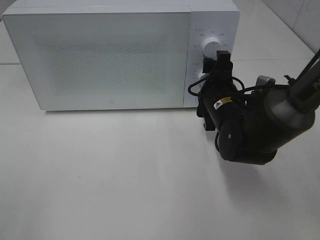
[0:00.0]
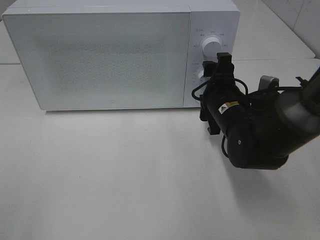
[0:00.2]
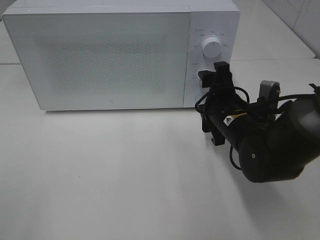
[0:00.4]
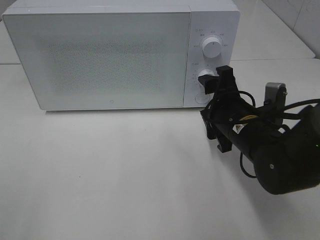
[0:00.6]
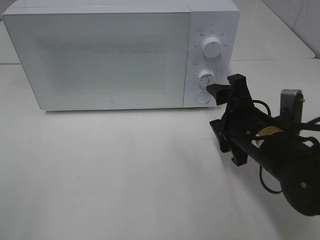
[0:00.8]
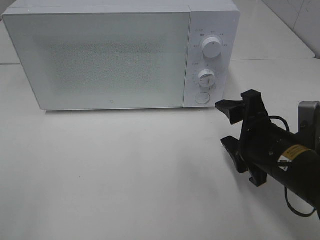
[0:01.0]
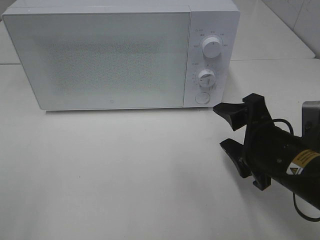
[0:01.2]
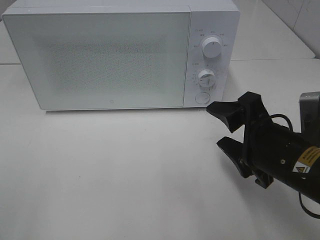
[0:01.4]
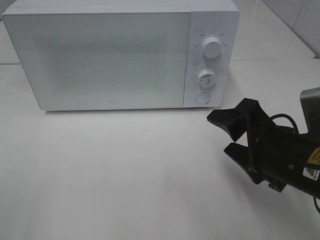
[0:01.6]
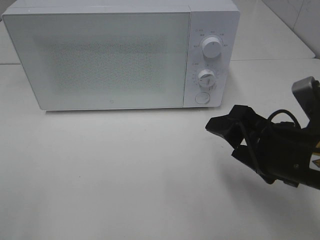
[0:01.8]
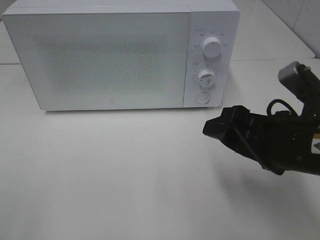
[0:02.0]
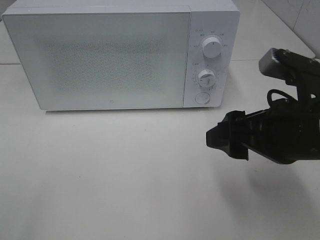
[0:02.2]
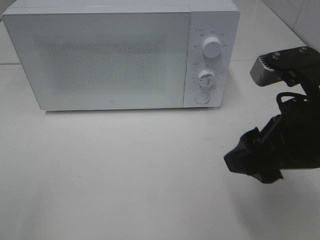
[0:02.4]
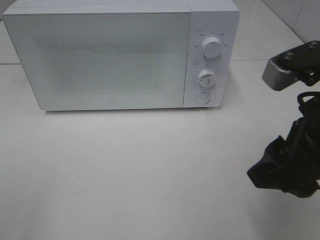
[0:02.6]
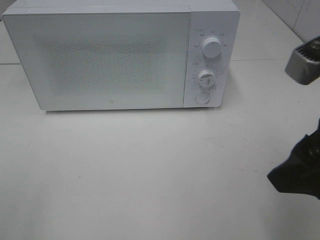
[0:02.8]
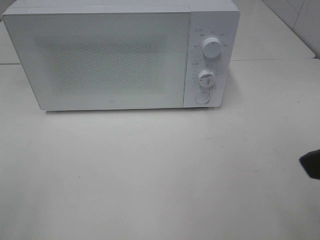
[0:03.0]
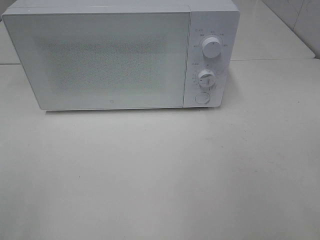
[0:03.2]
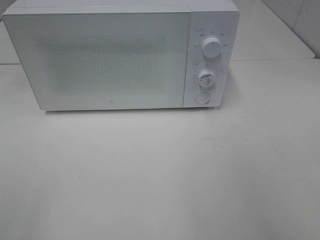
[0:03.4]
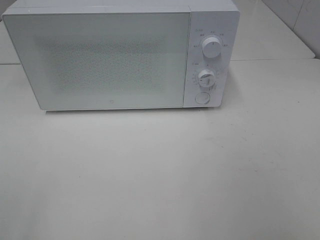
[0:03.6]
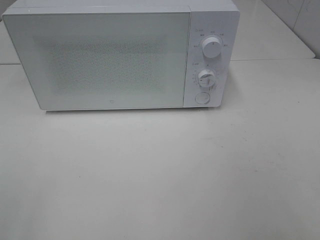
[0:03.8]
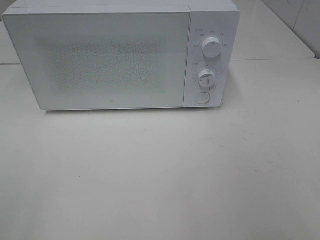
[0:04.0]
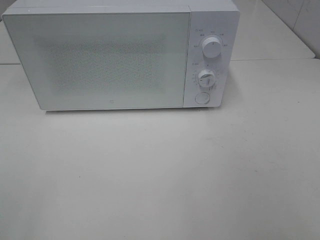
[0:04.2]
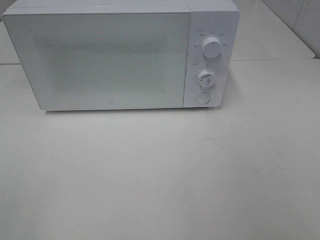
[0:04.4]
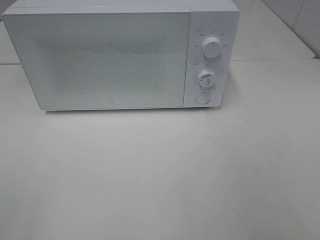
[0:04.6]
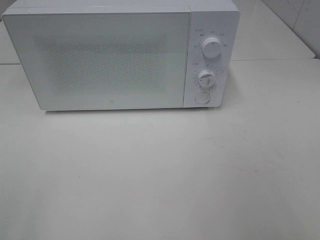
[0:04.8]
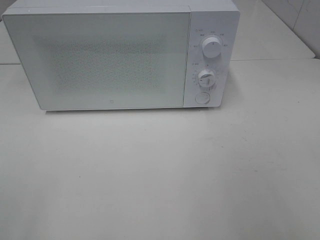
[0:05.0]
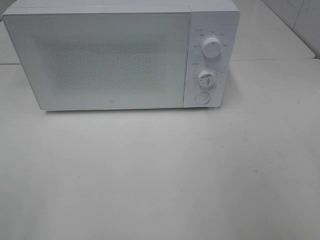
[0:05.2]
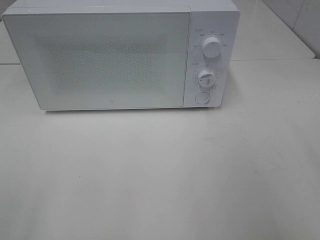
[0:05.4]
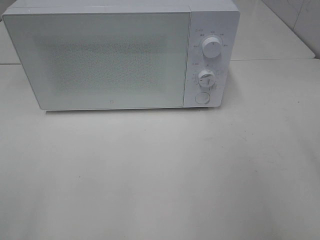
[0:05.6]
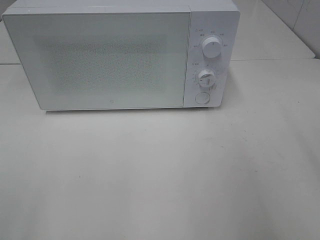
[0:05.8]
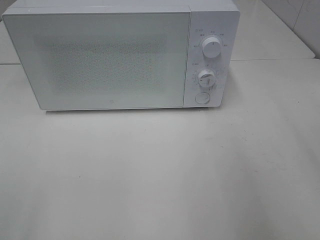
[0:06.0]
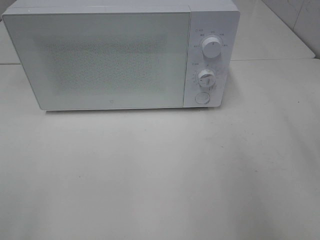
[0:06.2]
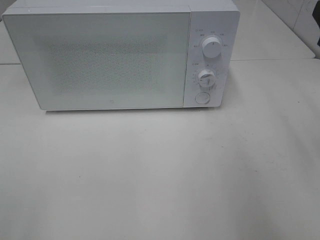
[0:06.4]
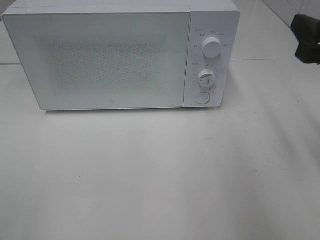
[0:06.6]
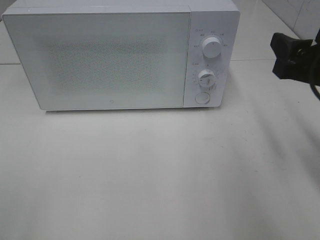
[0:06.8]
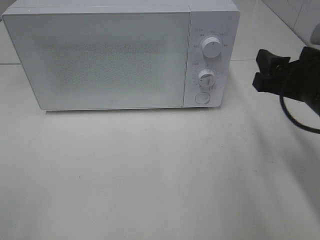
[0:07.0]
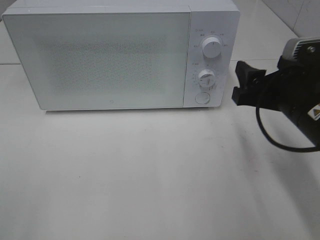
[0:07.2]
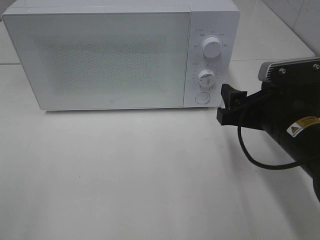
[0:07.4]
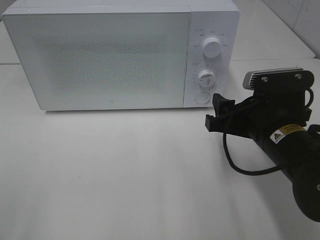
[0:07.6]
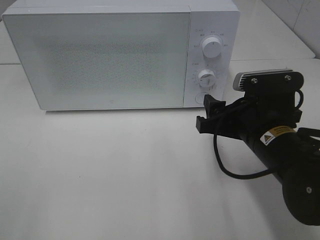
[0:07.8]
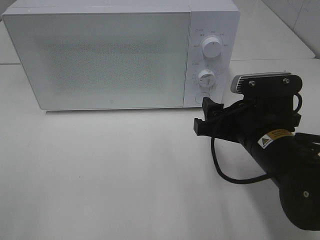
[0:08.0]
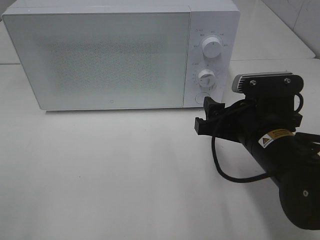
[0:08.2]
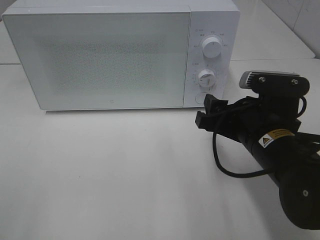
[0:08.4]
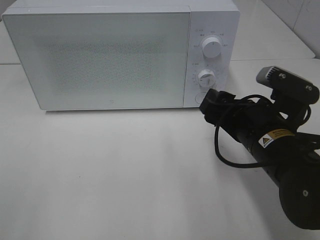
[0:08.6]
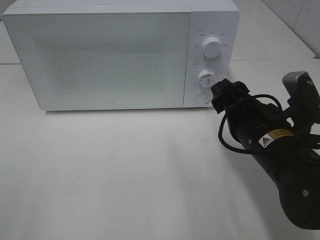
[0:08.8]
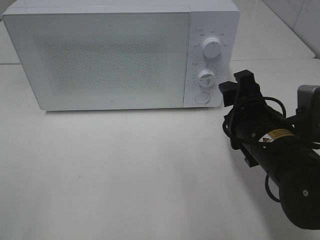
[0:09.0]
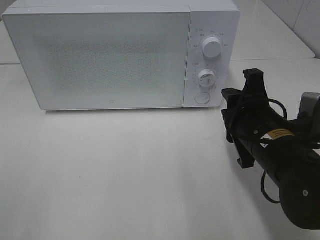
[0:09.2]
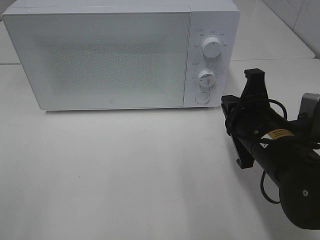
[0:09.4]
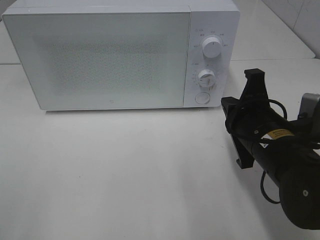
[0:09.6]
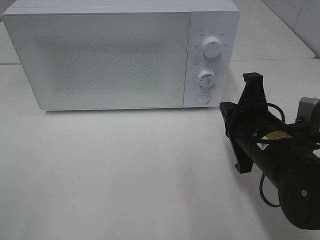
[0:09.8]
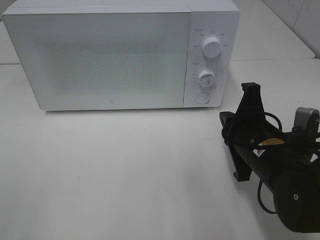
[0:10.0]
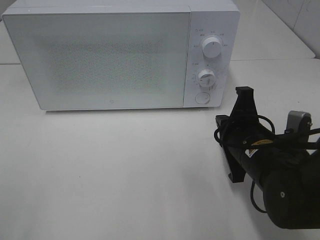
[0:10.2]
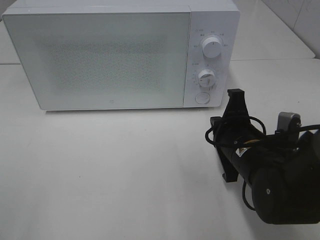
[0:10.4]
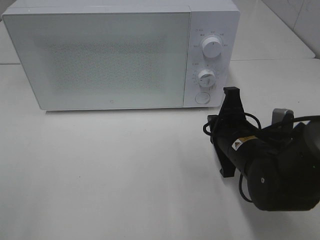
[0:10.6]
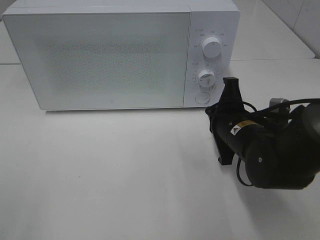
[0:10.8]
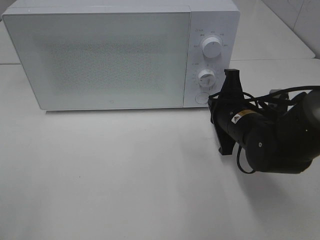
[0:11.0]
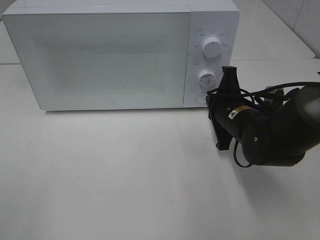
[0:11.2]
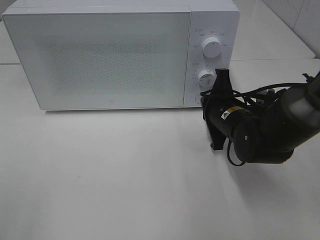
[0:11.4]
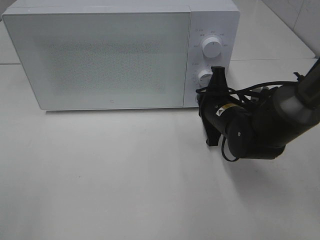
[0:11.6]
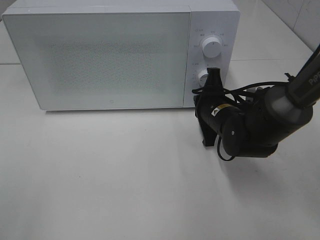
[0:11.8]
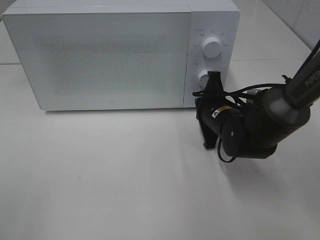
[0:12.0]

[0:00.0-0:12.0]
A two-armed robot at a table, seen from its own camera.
Task of the whole recording: Heat Sandwich.
0:00.0 to 0:01.6: The right gripper heads backward, covering approximately 15 cm.
0:01.6 to 0:03.0: The right gripper is displaced upward and backward by some 15 cm.
0:03.0 to 0:04.4: The right gripper heads backward and to the right, covering roughly 10 cm.
0:06.0 to 0:07.6: The right gripper shifts about 20 cm downward and to the left.
0:09.0 to 0:10.4: The right gripper closes.
0:10.4 to 0:12.0: The right gripper shifts about 10 cm forward.

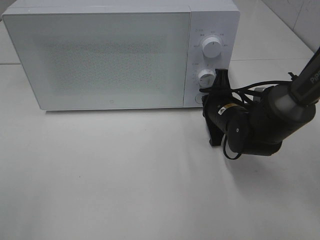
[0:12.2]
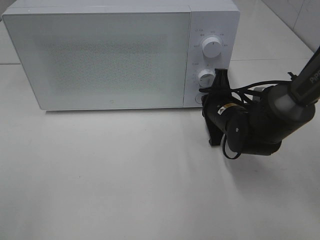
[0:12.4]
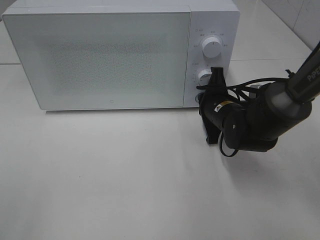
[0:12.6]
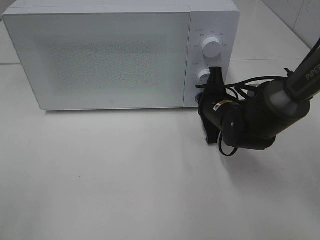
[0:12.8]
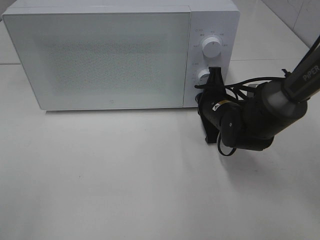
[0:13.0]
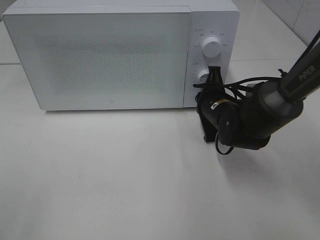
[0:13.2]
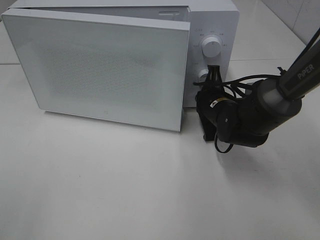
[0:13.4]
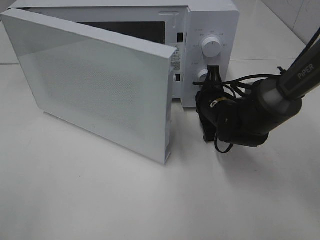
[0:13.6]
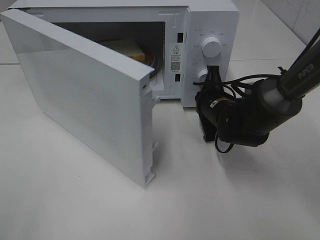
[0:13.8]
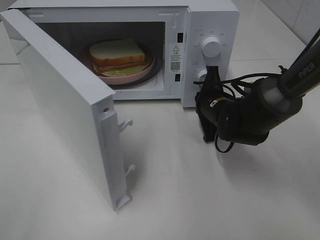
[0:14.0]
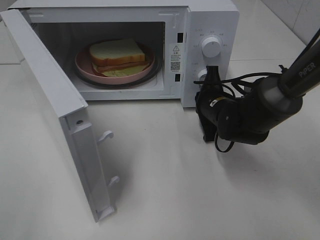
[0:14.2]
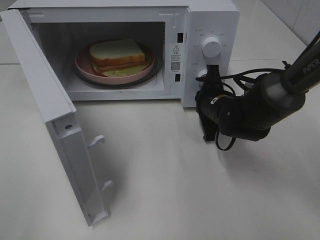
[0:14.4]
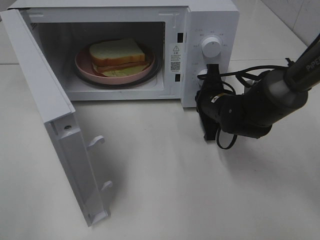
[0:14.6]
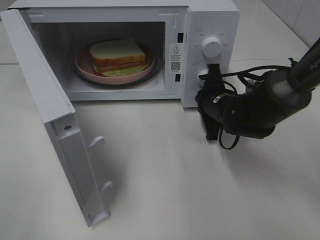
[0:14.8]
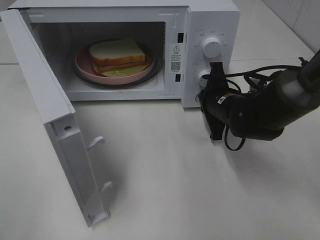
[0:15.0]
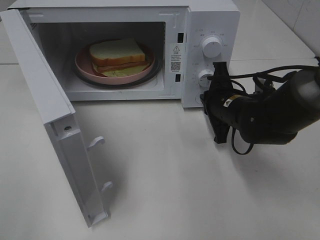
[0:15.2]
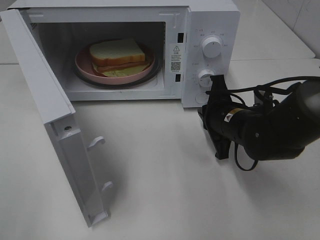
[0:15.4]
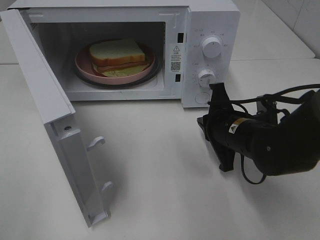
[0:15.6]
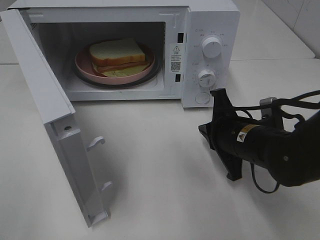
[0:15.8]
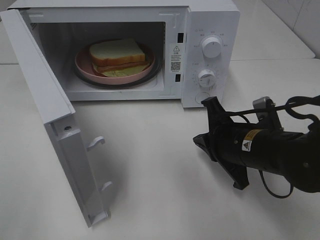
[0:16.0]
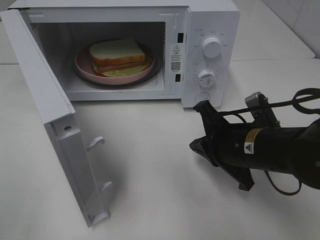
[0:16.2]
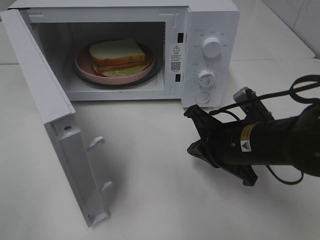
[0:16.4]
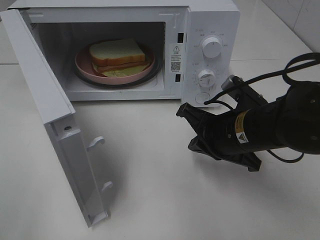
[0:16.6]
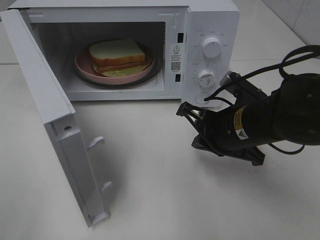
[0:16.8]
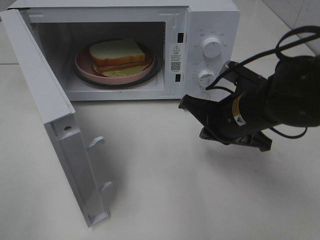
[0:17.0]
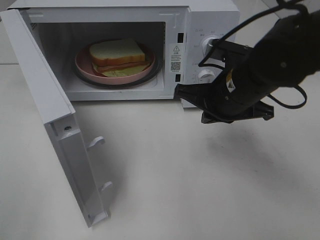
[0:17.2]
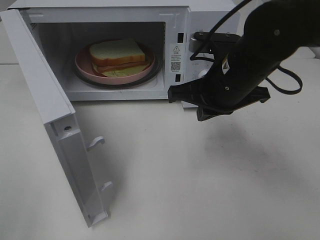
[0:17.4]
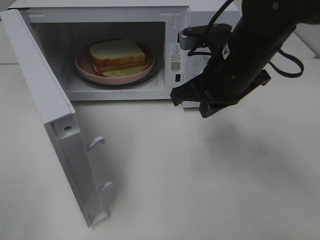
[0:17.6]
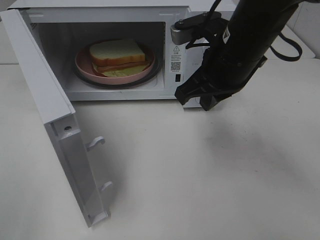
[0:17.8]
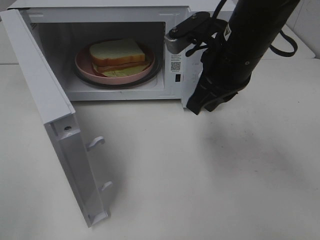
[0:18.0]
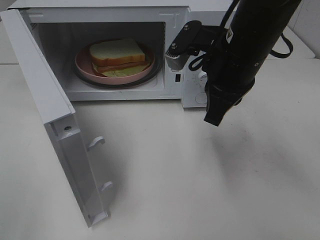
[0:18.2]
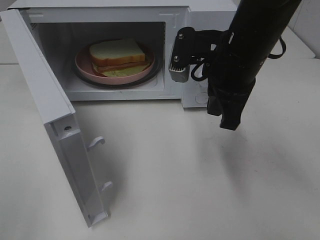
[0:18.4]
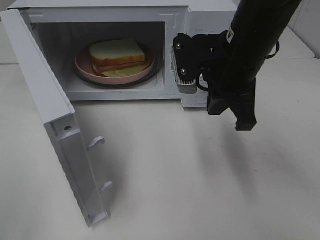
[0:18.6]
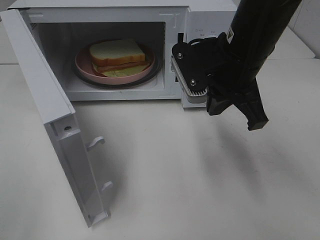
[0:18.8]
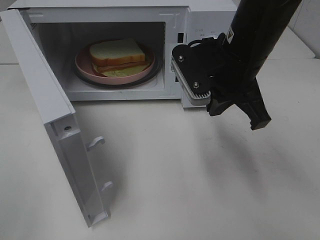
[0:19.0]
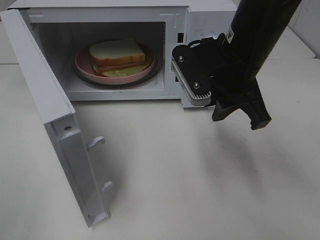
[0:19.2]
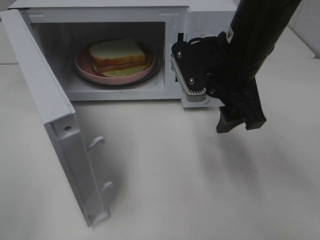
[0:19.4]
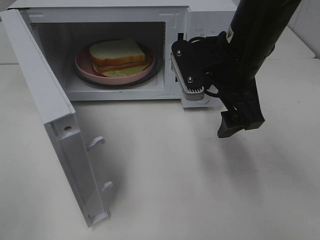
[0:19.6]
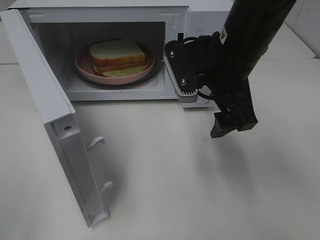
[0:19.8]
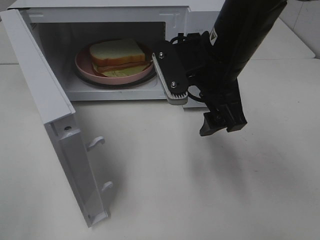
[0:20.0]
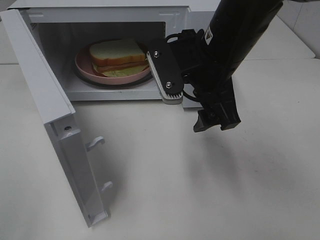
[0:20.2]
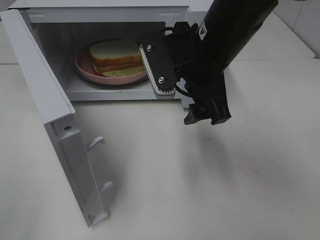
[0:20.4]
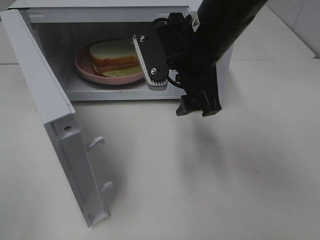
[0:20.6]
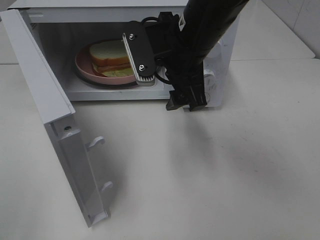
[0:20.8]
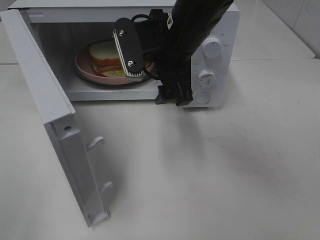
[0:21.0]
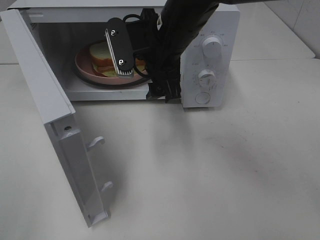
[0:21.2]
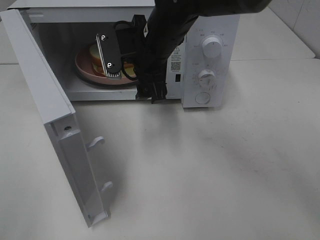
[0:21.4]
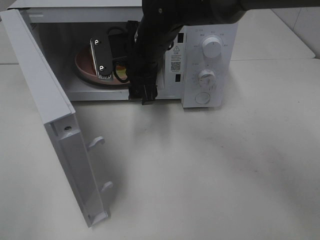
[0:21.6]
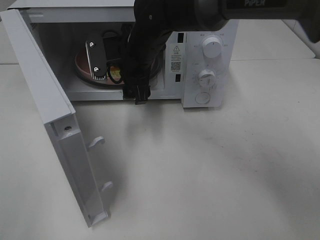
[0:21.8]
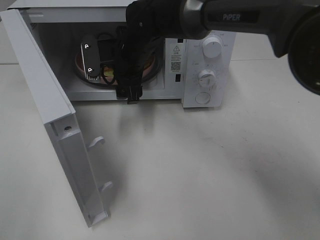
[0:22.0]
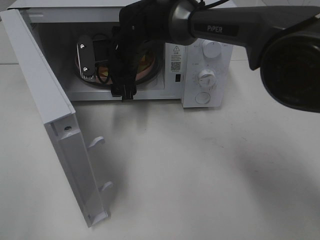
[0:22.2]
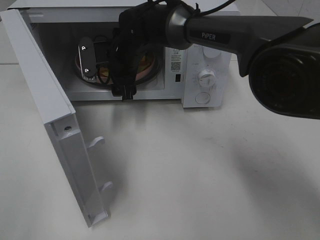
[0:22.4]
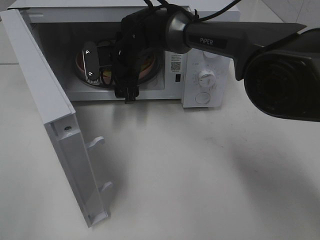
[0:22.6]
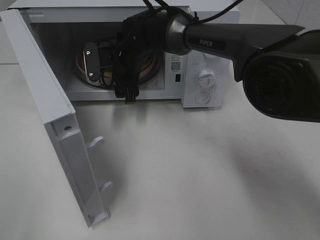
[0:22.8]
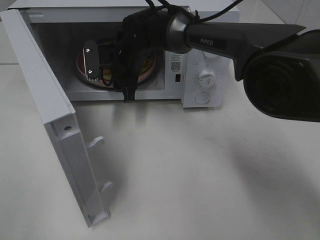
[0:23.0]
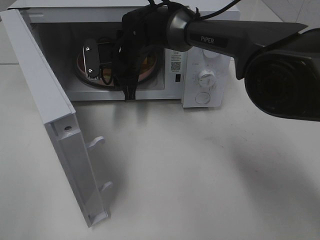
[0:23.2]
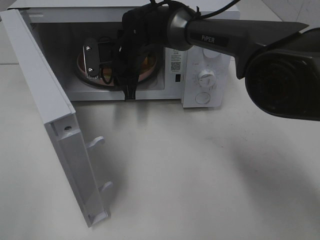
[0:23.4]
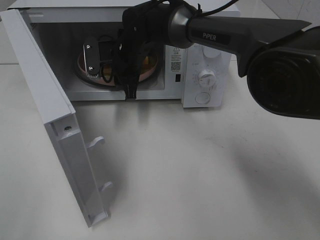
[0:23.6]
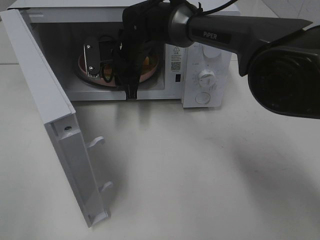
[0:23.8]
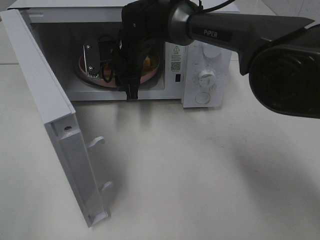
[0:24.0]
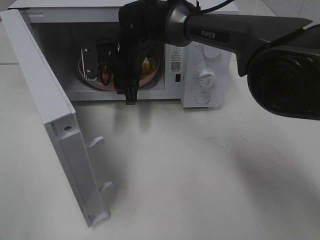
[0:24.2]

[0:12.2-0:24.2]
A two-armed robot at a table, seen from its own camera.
Task of the whole recording: Heat Sandwich.
Step, 0:12.2 to 0:15.2: Right hand: press the switch.
Step, 0:15.4 to 0:23.6: Right hand: grab the plate with the sandwich.
0:15.2 to 0:16.6: The right gripper goes about 10 cm backward.
0:16.6 to 0:18.2: The right gripper shifts approximately 10 cm upward.
0:18.2 to 0:19.8: The right gripper opens up.
0:19.8 to 0:21.2: The right gripper heads to the left and forward, covering approximately 10 cm.
0:21.2 to 0:22.6: The right gripper travels forward, downward and to the left by roughly 15 cm.
0:22.6 to 0:24.2: The right gripper closes up.
